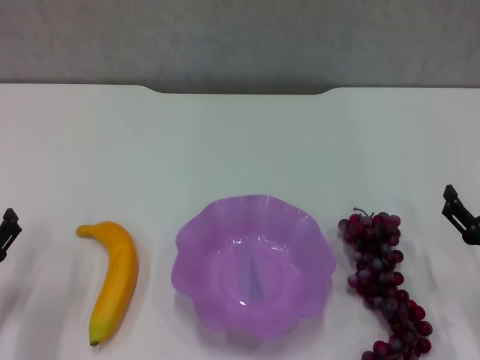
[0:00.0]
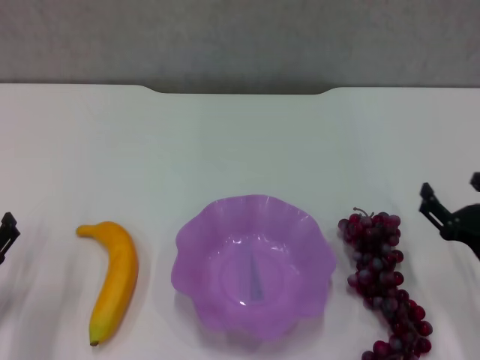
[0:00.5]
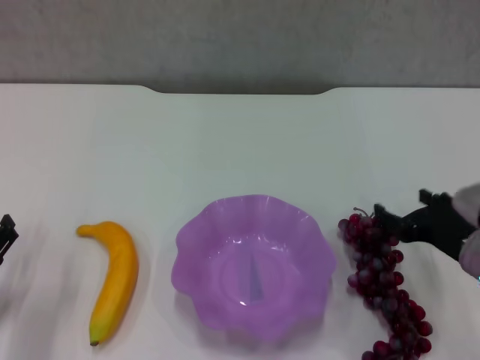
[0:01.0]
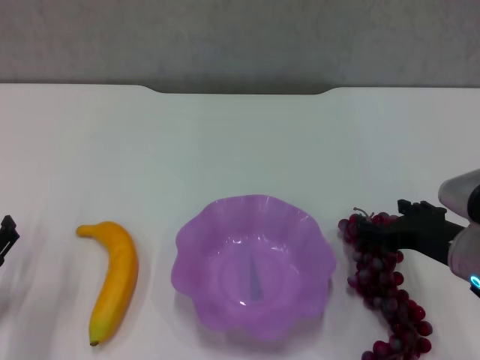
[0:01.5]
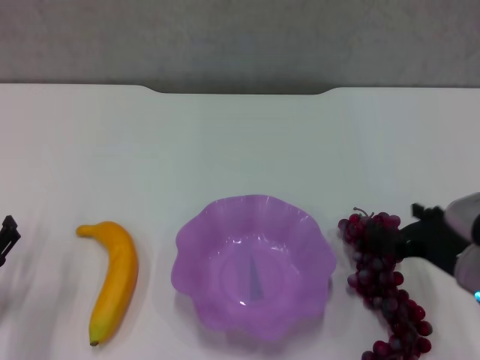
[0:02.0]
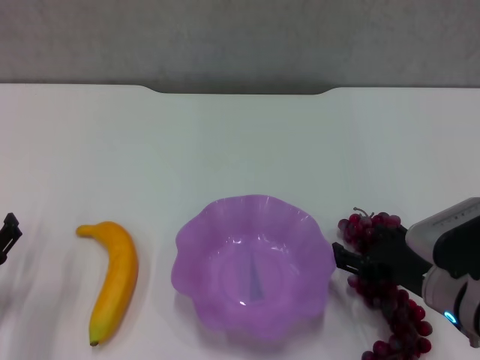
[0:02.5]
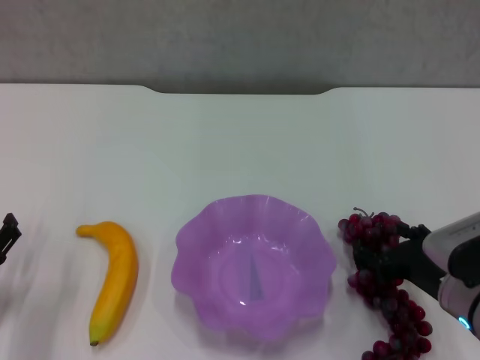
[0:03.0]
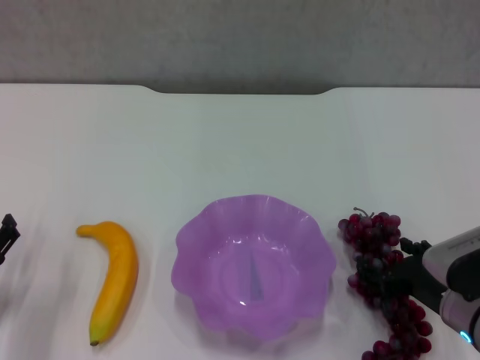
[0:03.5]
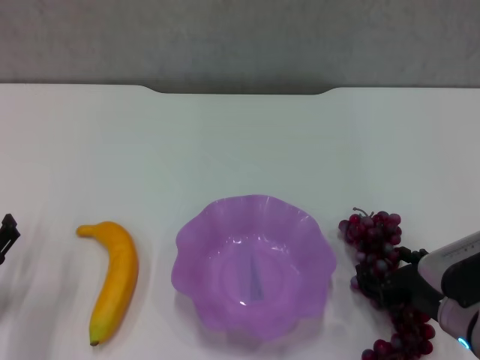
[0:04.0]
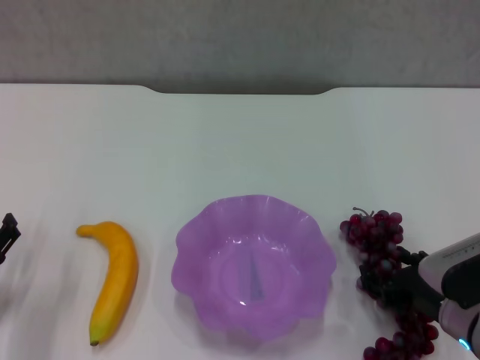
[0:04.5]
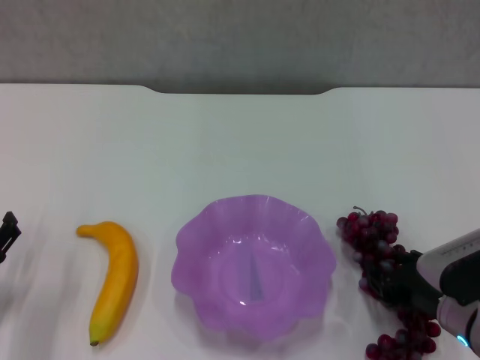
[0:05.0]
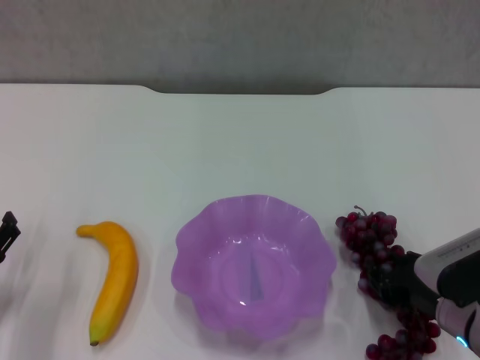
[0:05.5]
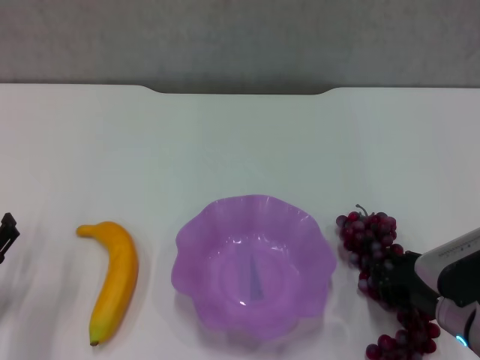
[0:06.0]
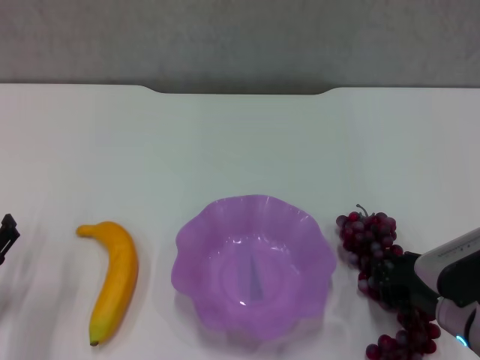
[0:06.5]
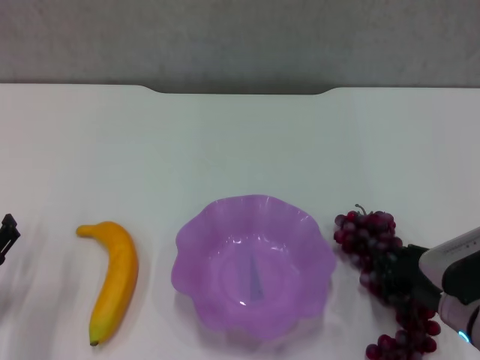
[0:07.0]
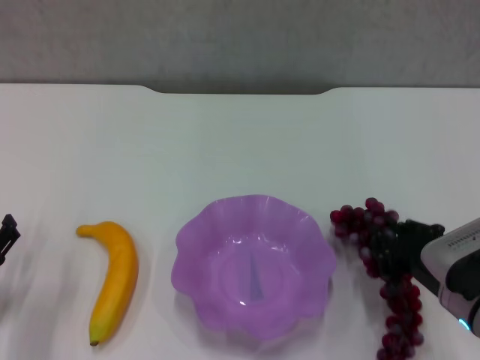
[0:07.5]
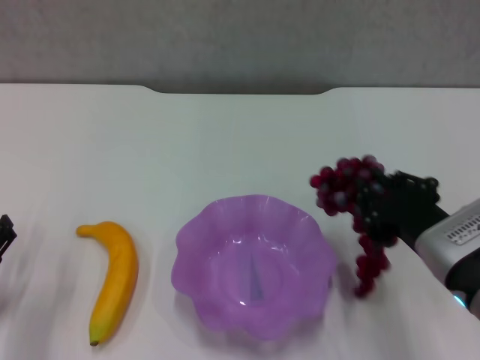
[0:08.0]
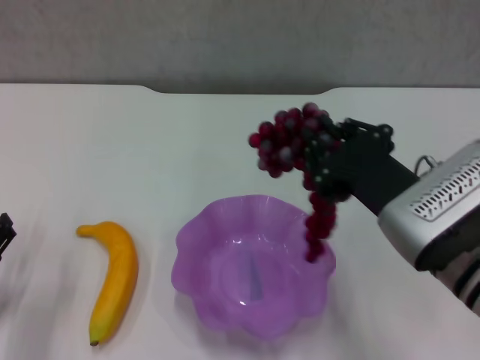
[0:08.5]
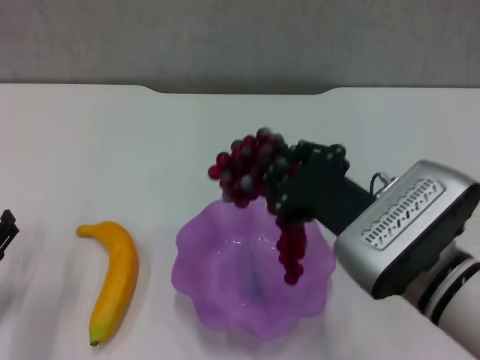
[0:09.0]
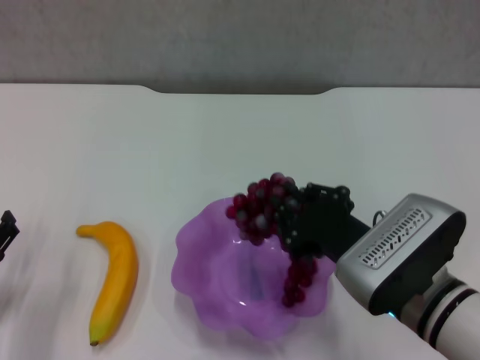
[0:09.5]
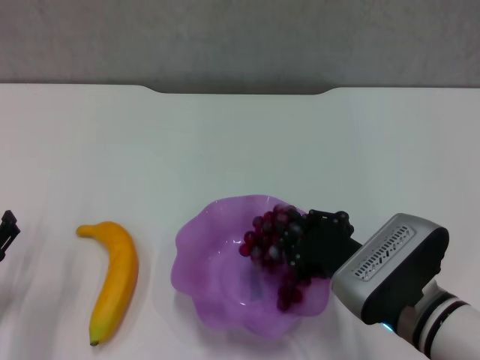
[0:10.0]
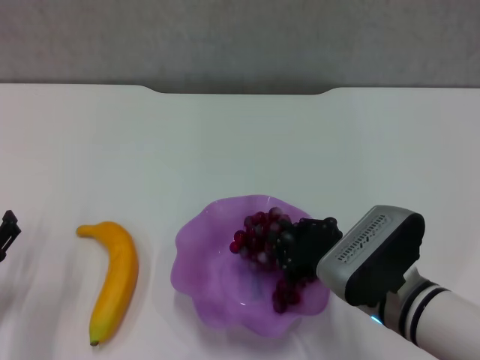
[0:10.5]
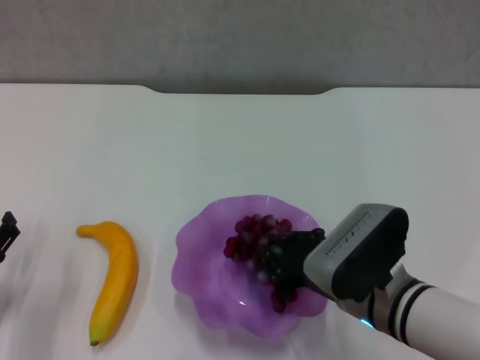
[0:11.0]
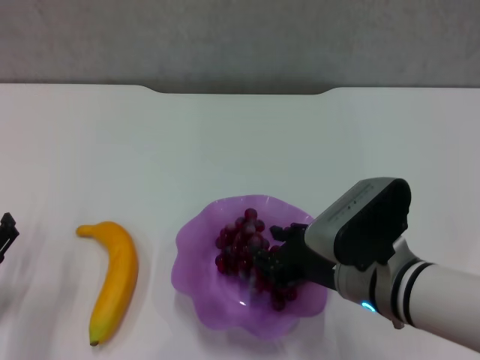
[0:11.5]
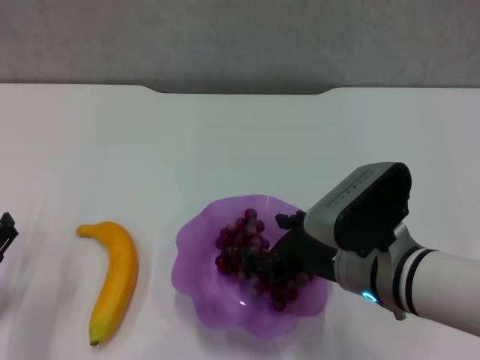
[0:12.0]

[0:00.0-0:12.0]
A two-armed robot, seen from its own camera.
Step, 0:00.0 to 0:05.0: Grasp the grape with right gripper.
0:00.0 to 0:02.0: The right gripper is displaced to the left and upward by roughly 10 cm.
0:02.0 to 0:04.0: The right gripper changes place by approximately 5 cm.
0:04.0 to 0:06.0: The right gripper closes its fingers.
0:06.0 to 0:08.0: The right gripper shifts roughly 5 cm upward.
0:08.0 to 0:10.0: The right gripper shifts roughly 5 cm to the left.
0:10.0 to 0:12.0: The right gripper opens its fingers.

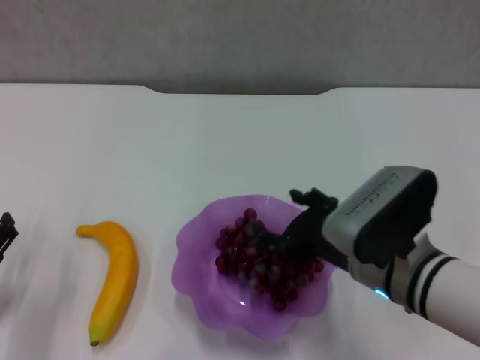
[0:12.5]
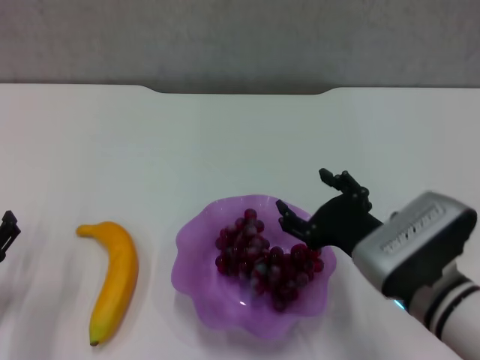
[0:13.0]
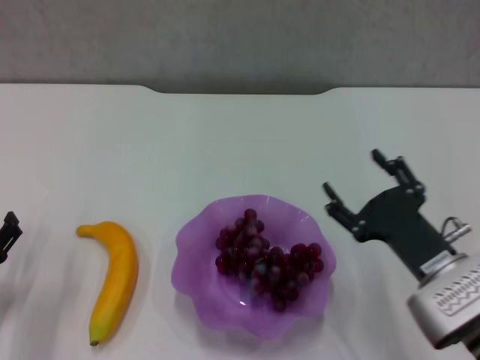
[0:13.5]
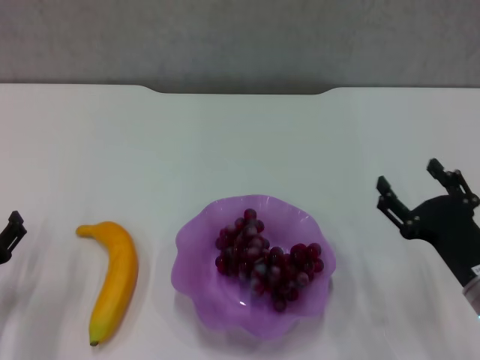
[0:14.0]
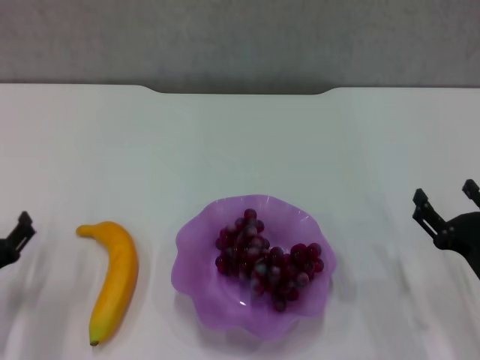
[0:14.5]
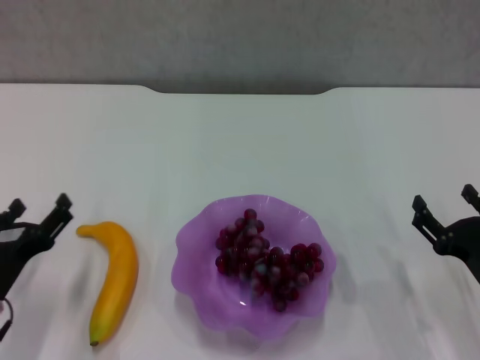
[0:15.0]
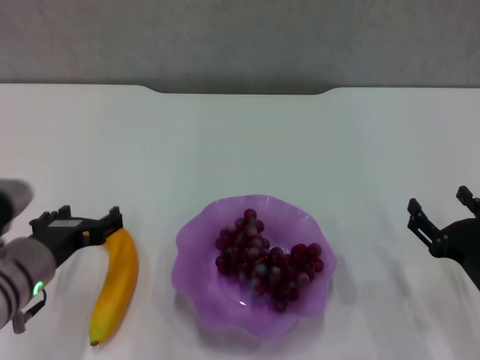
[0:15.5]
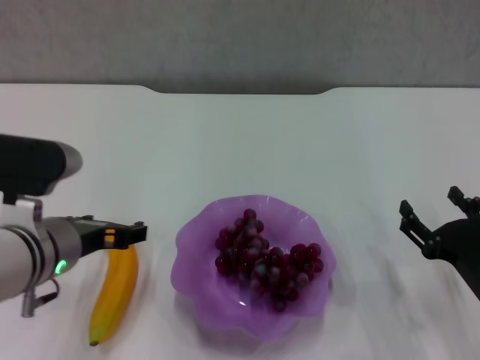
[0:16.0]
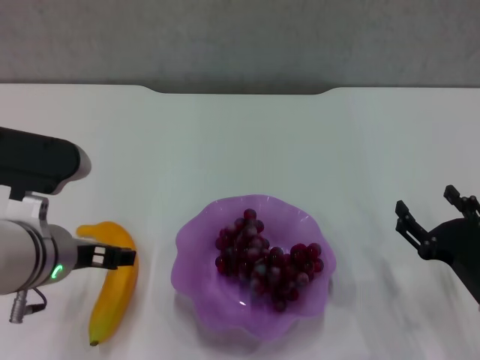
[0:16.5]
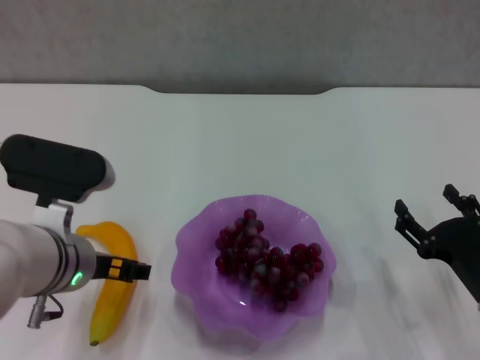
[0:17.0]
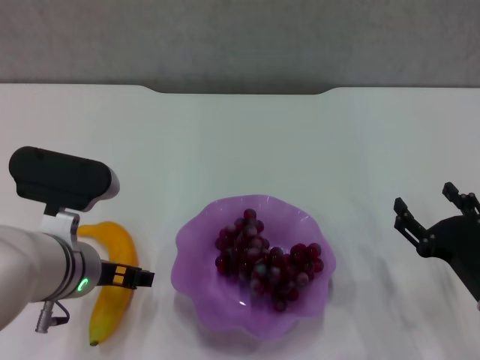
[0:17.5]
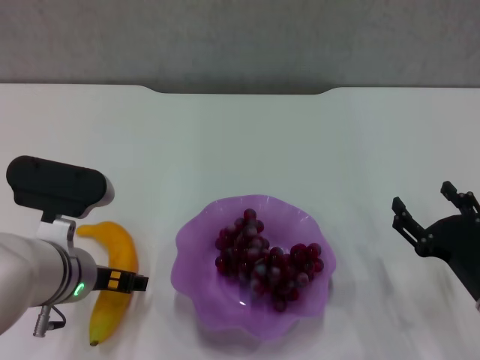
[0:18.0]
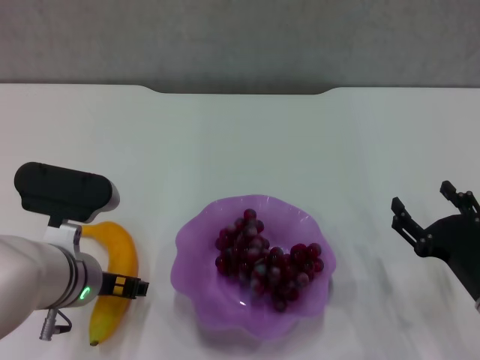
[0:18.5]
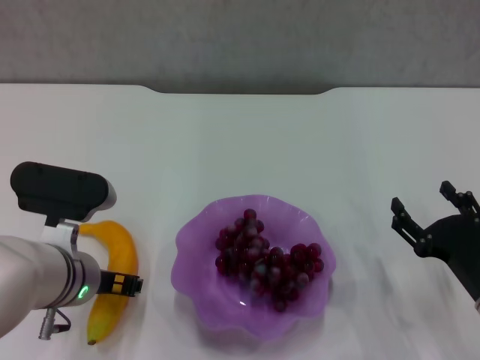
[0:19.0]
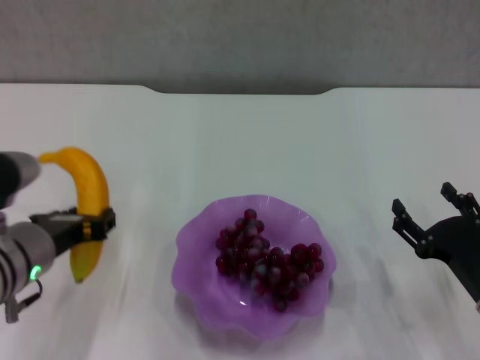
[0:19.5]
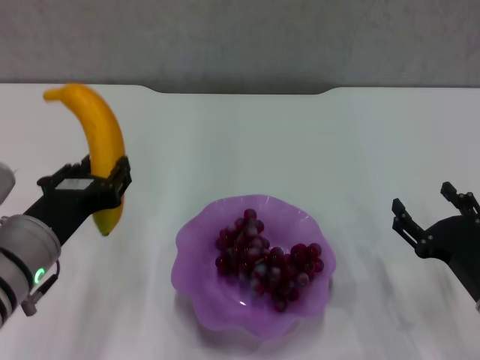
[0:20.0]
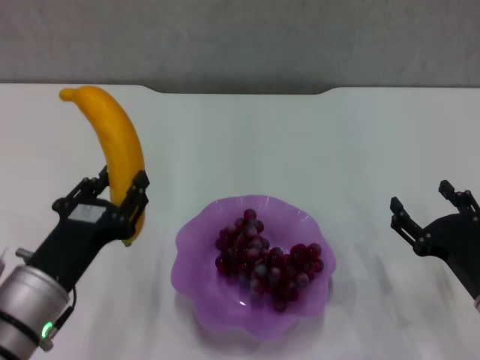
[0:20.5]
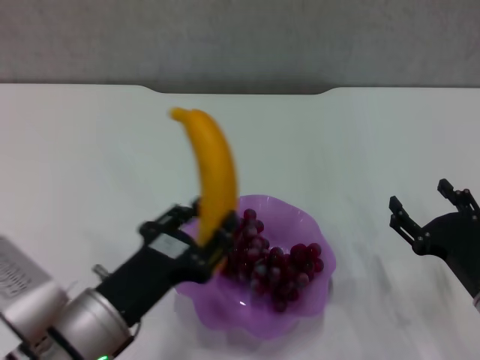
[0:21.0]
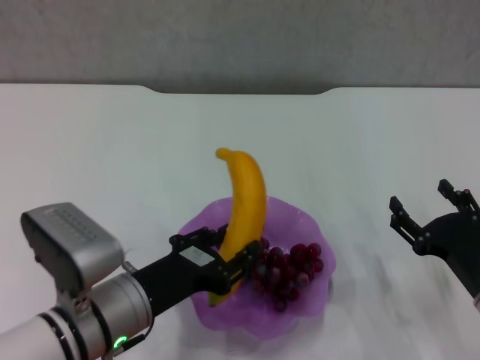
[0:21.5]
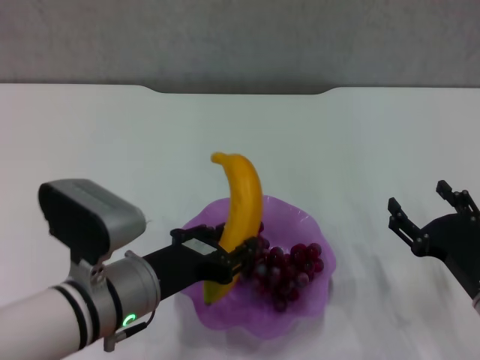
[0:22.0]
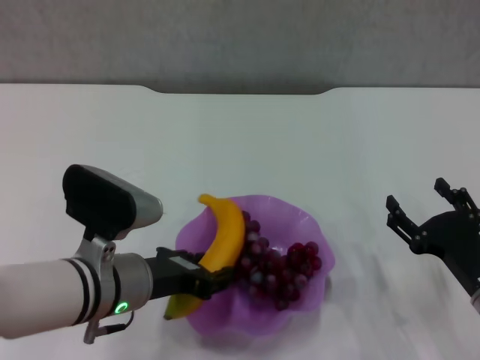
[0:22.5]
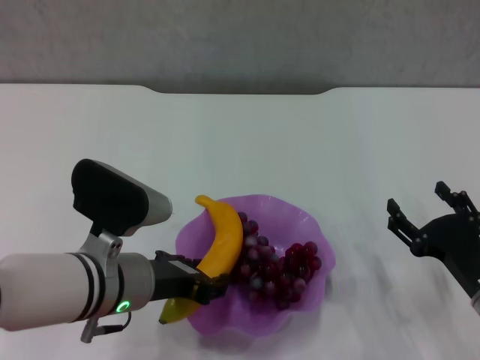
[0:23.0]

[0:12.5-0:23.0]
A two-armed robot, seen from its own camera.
Step, 0:13.0 to 0:18.5: Grasp the banana with left gripper.
0:12.5 to 0:14.5: The right gripper is displaced to the right and downward by roughly 15 cm.
0:14.5 to 0:16.5: The left gripper heads upward and to the right, covering approximately 20 cm.
0:16.5 to 0:19.0: The left gripper travels downward by some 5 cm, and closes.
0:19.0 to 0:21.0: The left gripper goes roughly 10 cm backward.
0:21.0 to 0:23.0: The left gripper heads forward, covering approximately 5 cm.

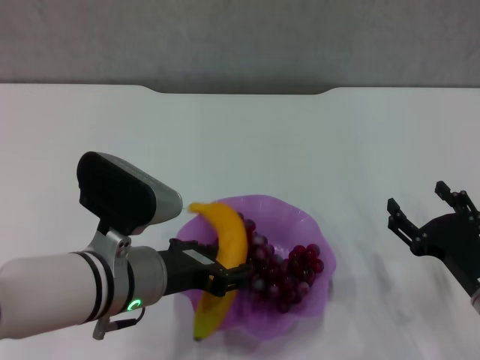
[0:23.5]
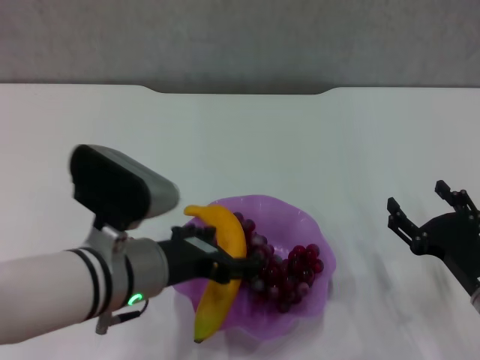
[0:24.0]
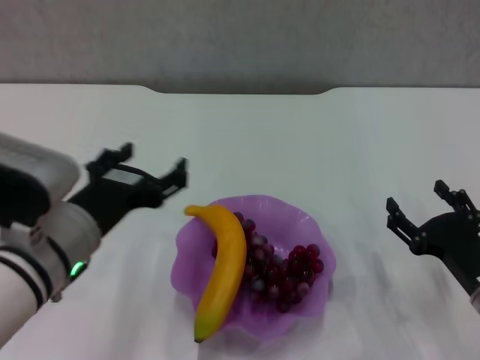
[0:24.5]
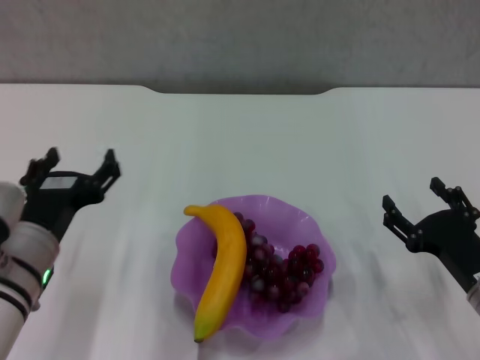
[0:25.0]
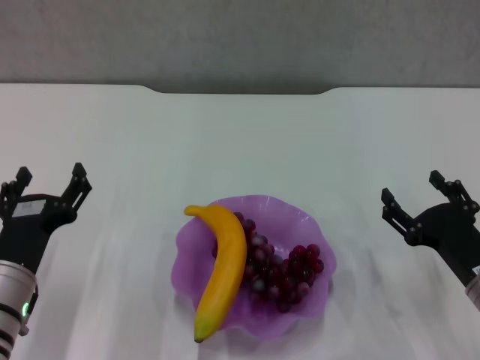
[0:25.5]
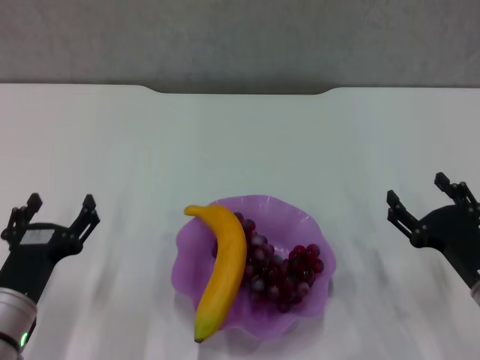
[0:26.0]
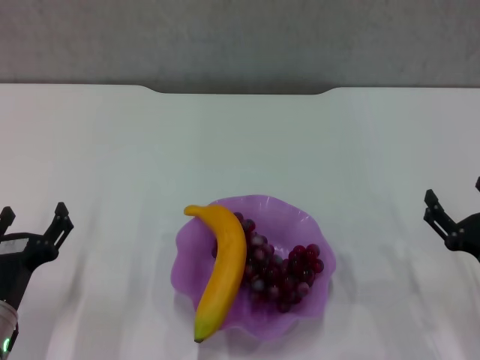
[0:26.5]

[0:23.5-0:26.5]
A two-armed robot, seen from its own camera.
0:23.5 to 0:25.0: The left gripper moves to the left, approximately 10 cm, and opens.
0:25.0 to 0:26.5: The left gripper moves downward and to the left, some 10 cm.
